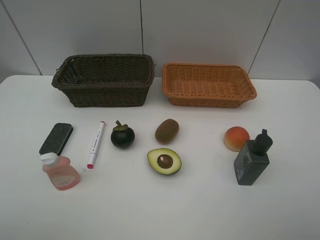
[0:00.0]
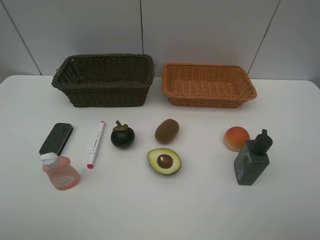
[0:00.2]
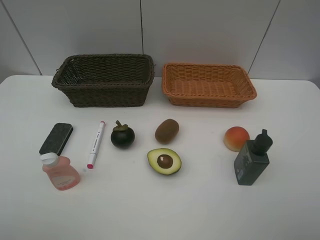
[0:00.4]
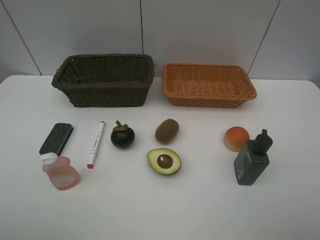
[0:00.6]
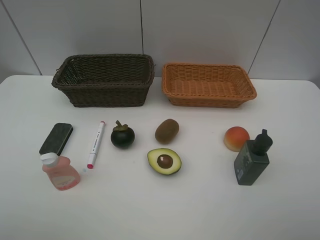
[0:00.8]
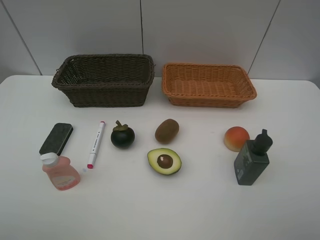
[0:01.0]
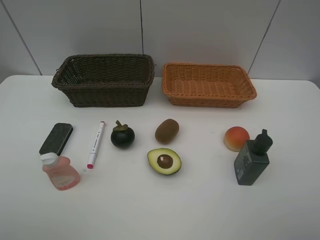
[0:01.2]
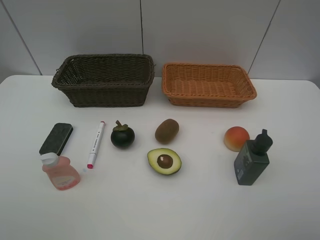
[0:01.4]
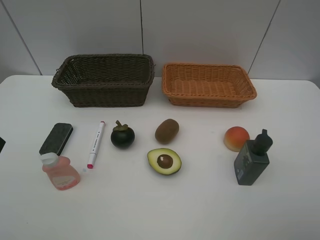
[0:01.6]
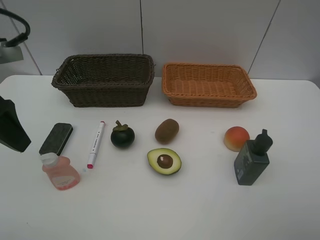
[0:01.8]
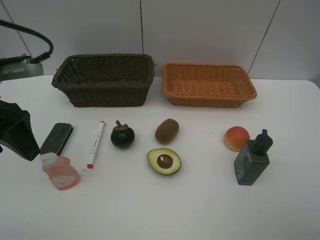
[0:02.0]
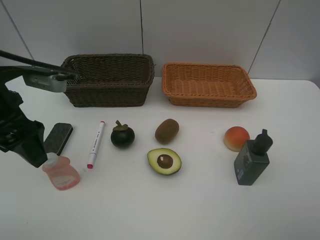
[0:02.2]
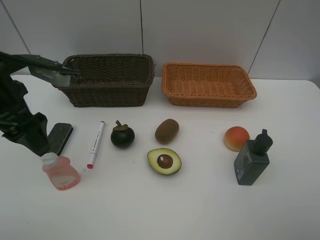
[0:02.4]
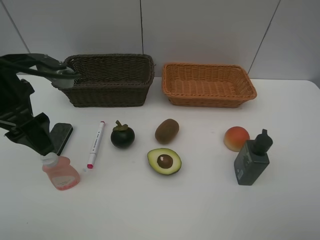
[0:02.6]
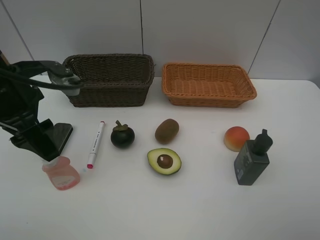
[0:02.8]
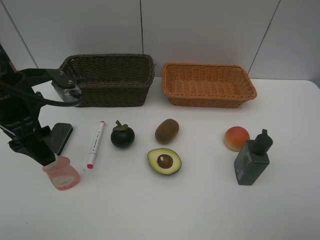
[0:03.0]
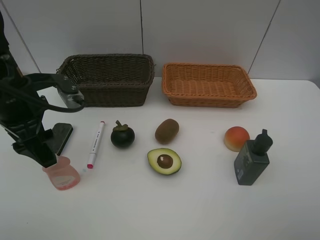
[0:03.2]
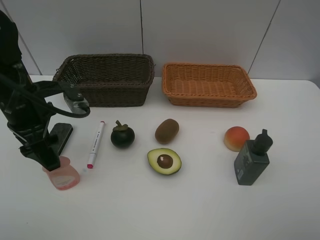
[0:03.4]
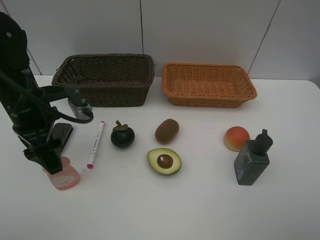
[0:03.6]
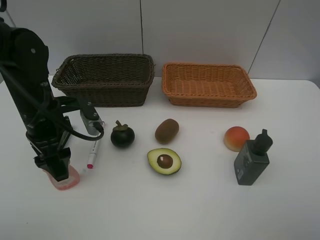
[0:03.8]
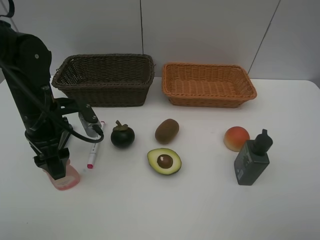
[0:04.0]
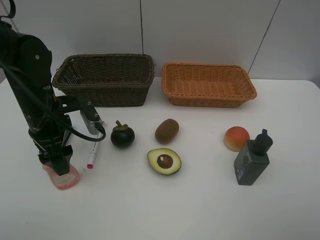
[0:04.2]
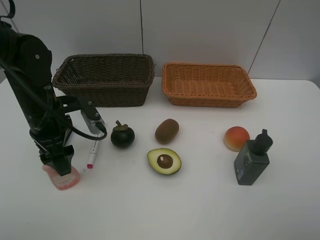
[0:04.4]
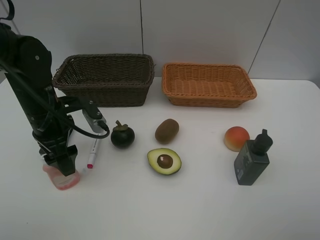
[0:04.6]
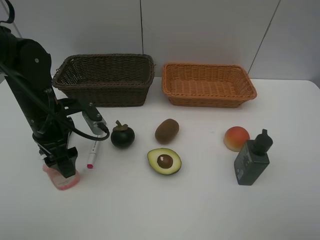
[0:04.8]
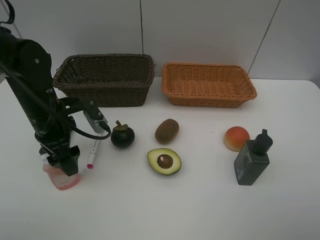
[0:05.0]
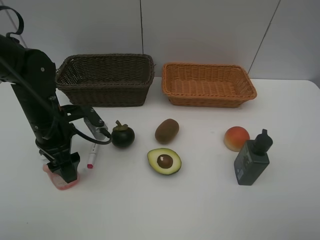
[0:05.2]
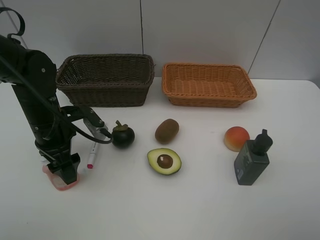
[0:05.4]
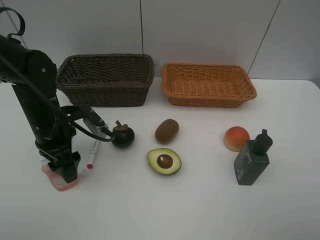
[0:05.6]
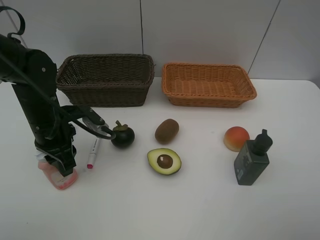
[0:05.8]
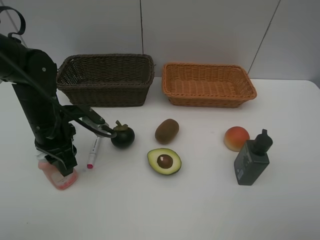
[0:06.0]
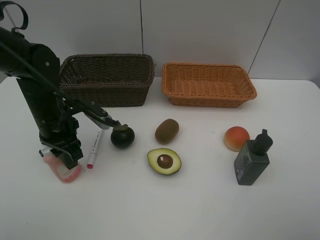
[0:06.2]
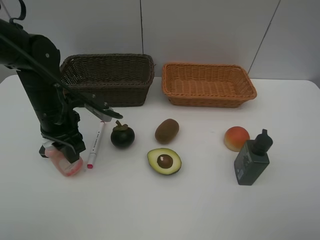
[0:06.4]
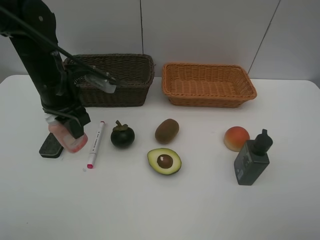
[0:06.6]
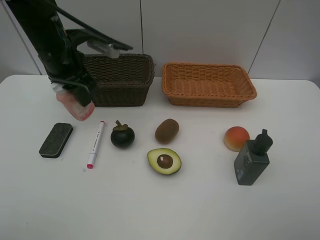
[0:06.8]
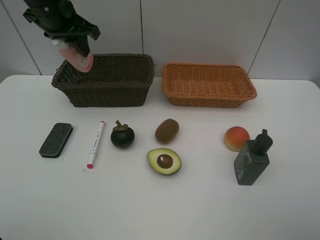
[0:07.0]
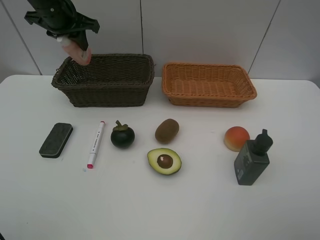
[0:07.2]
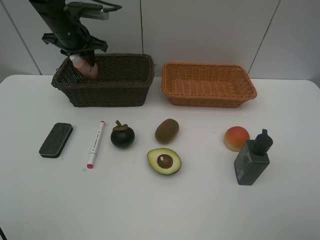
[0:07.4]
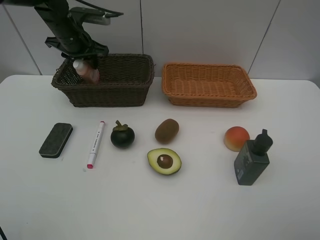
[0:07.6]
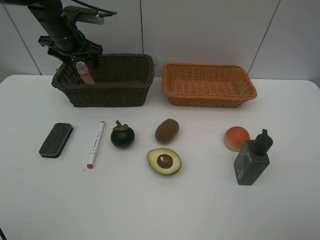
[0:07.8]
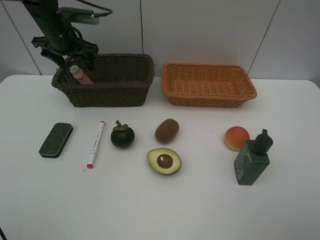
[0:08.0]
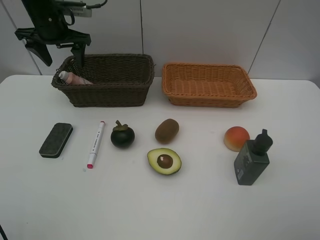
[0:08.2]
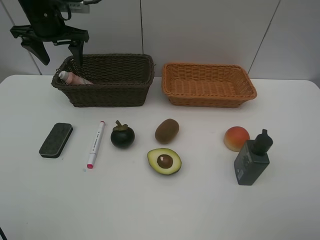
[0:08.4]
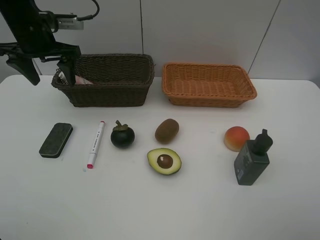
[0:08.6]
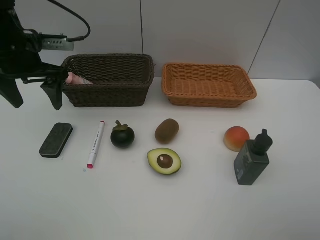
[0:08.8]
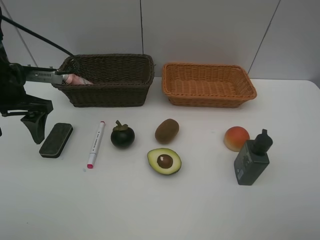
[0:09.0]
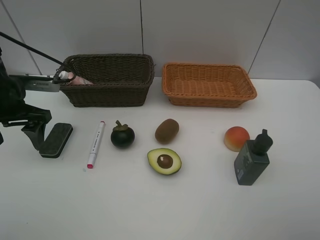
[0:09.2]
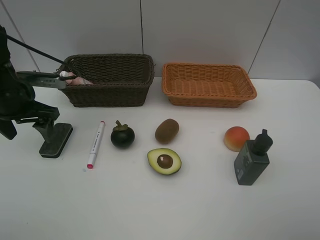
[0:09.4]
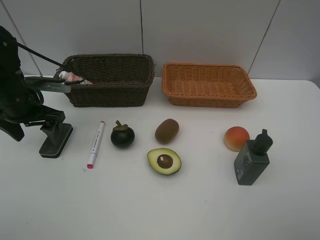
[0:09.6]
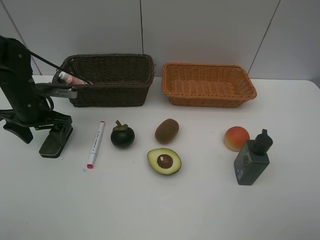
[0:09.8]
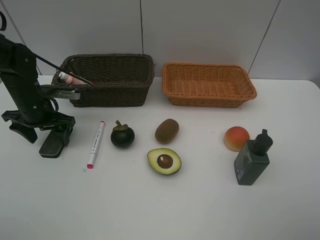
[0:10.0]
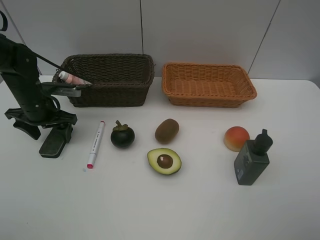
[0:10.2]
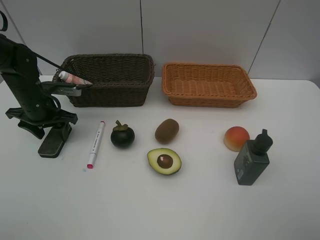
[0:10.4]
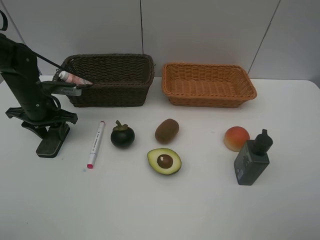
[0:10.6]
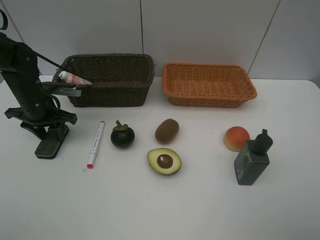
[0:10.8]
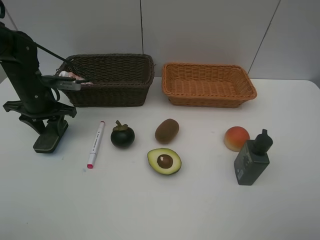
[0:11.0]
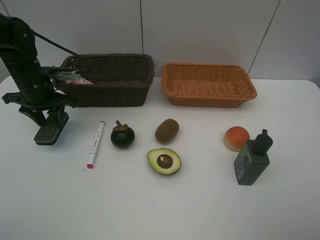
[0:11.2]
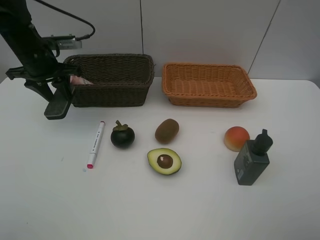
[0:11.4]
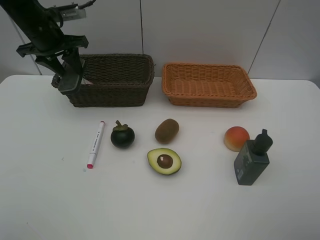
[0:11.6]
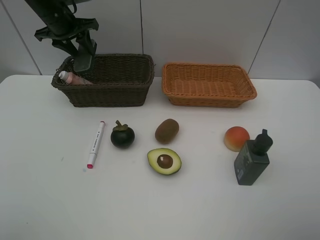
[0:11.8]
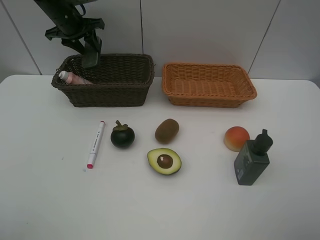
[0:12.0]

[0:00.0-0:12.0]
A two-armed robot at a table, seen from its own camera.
Task of the whole recording: Place multiple objects separately in different baskets.
Step, 0:00.0 to 0:06.4: Pick up the laundry detergent with left gripper.
Step, 0:06.6 to 0:08.0: Place the laundry detergent in the dark basket with left gripper.
Step, 0:08.2 to 0:11.0: Pick up blackboard eraser with left gripper.
0:01.6 to 0:03.0: The left gripper heads forward, downward and to the right, covering roughly 15 cm.
0:03.0 to 0:04.4: The left gripper heads downward, covering roughly 5 cm.
0:04.4 to 0:06.0: The left gripper closes up.
0:06.0 to 0:07.6: The left gripper heads forward and upward, covering some 20 cm.
0:07.6 to 0:09.0: The left gripper shifts some 20 cm backward, and opens.
0:09.0 to 0:10.4: The left gripper moves downward and forward, some 10 cm.
0:10.4 to 0:12.0: The left gripper shifts about 20 cm forward and upward.

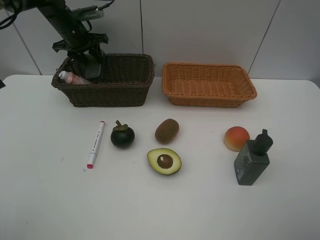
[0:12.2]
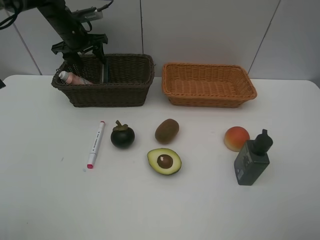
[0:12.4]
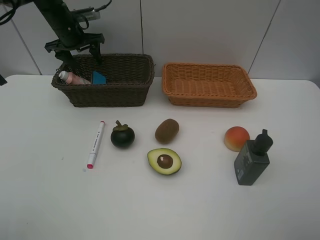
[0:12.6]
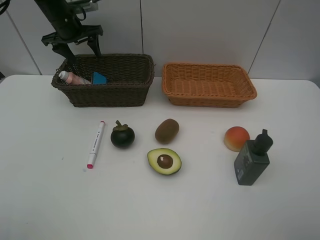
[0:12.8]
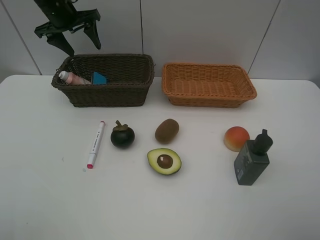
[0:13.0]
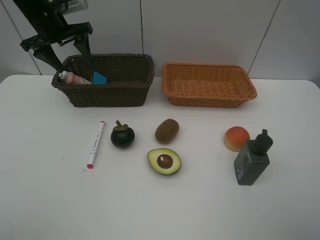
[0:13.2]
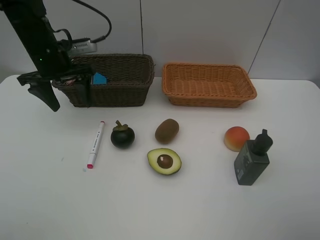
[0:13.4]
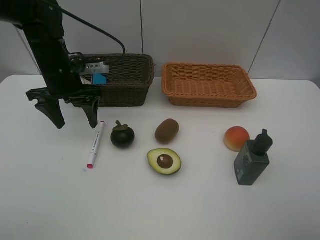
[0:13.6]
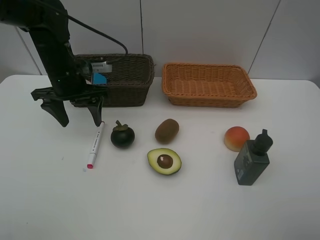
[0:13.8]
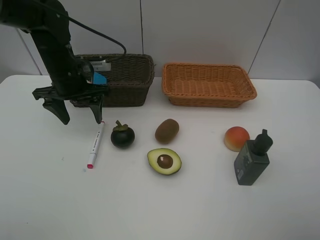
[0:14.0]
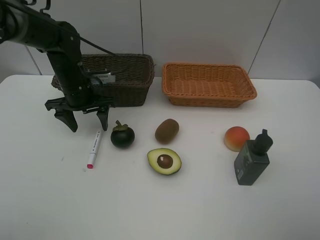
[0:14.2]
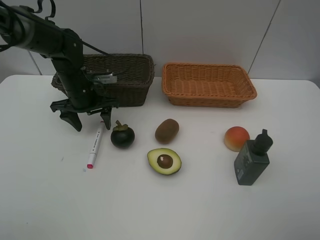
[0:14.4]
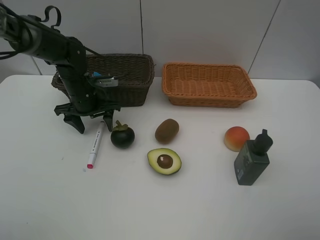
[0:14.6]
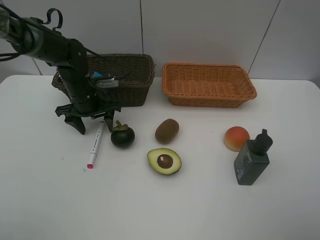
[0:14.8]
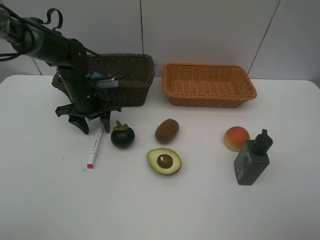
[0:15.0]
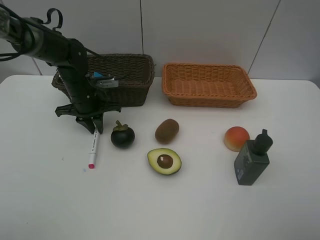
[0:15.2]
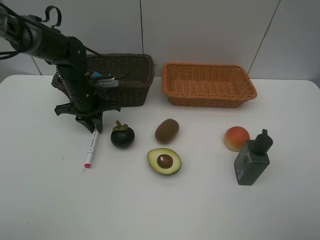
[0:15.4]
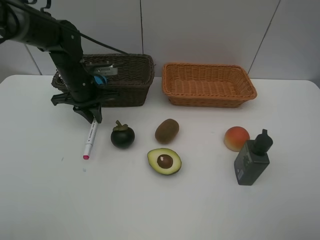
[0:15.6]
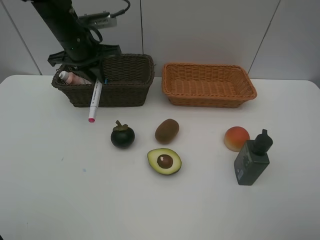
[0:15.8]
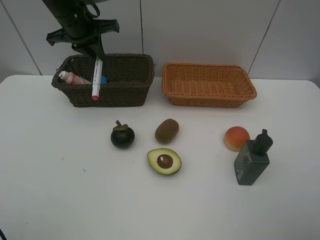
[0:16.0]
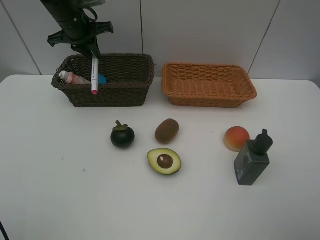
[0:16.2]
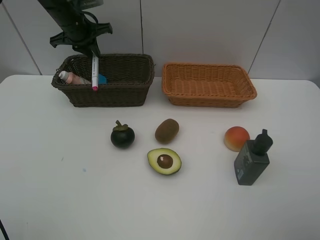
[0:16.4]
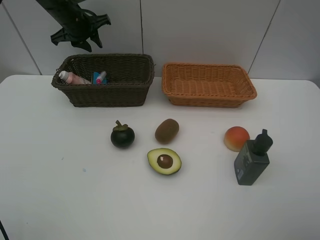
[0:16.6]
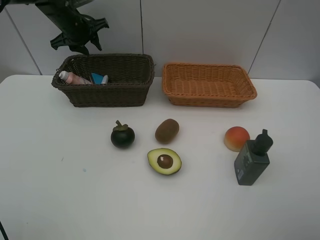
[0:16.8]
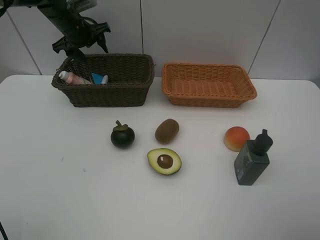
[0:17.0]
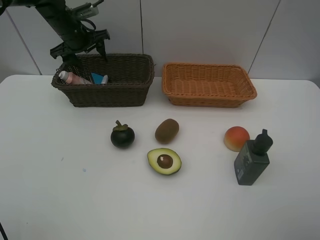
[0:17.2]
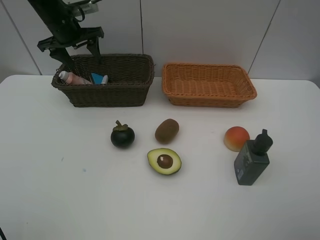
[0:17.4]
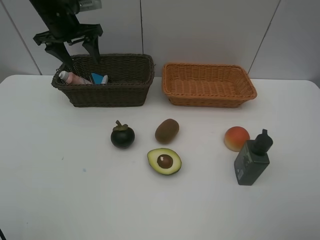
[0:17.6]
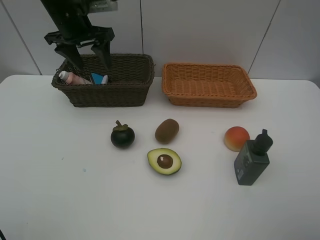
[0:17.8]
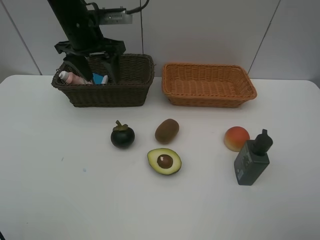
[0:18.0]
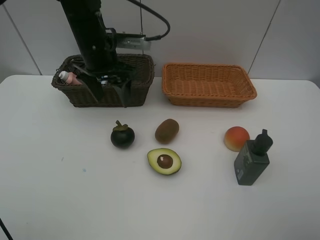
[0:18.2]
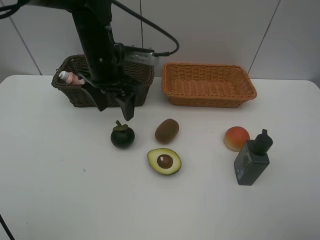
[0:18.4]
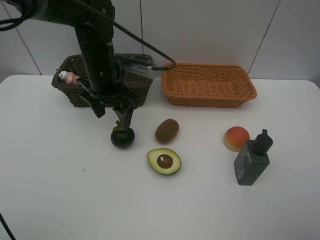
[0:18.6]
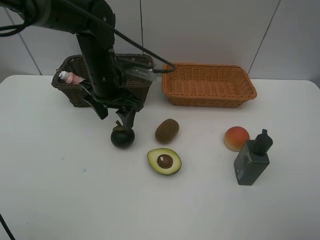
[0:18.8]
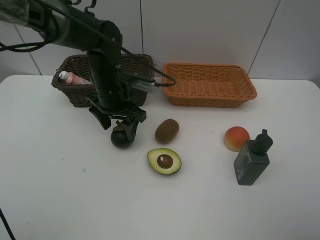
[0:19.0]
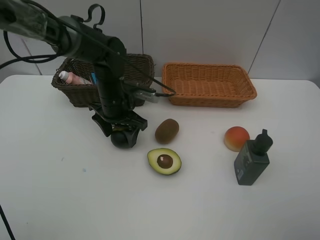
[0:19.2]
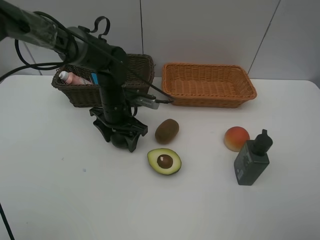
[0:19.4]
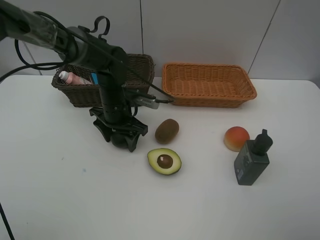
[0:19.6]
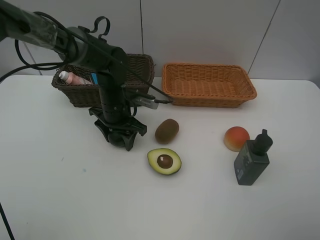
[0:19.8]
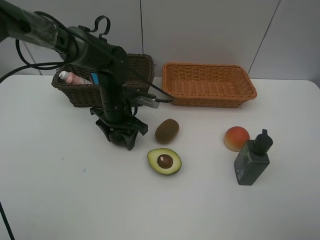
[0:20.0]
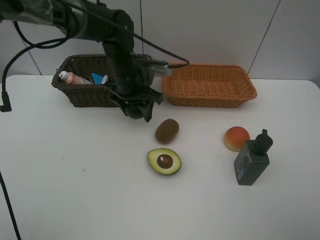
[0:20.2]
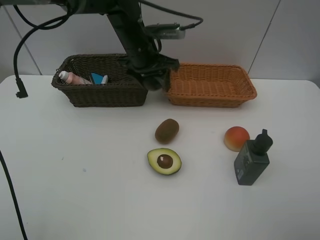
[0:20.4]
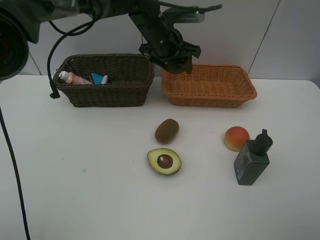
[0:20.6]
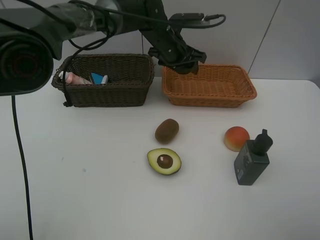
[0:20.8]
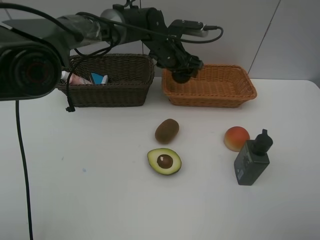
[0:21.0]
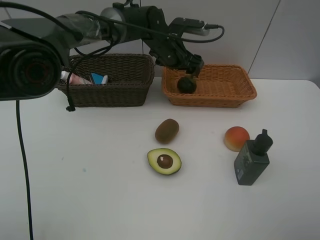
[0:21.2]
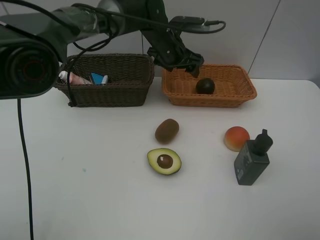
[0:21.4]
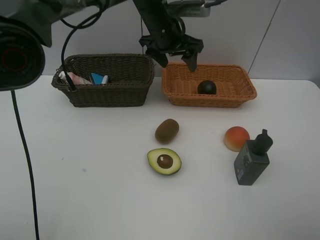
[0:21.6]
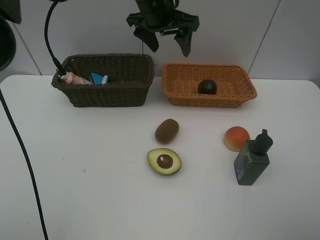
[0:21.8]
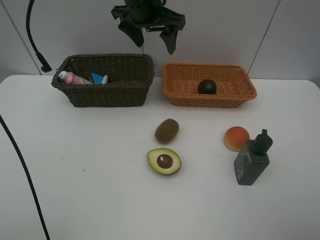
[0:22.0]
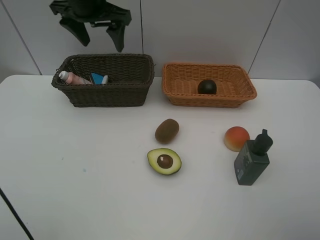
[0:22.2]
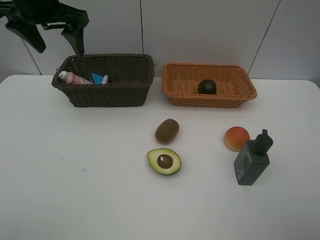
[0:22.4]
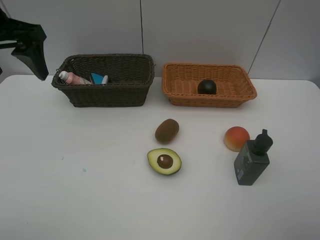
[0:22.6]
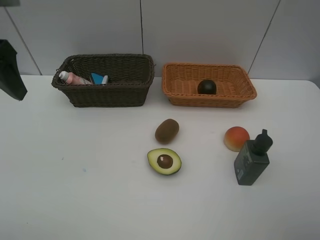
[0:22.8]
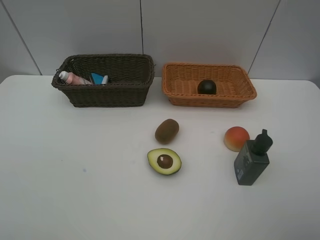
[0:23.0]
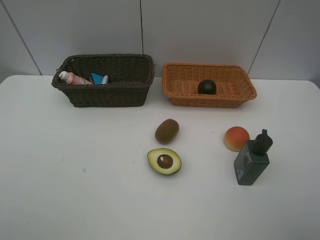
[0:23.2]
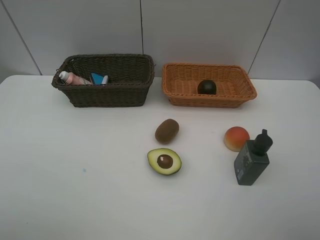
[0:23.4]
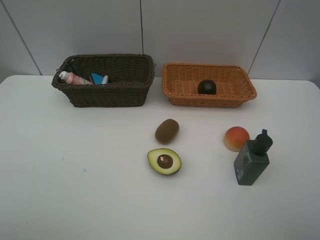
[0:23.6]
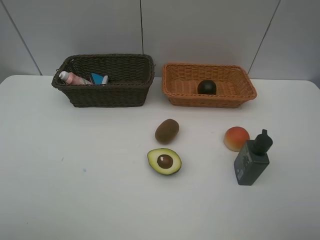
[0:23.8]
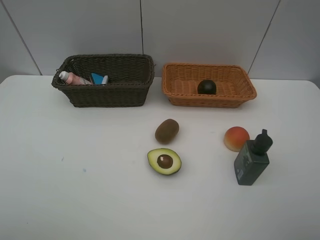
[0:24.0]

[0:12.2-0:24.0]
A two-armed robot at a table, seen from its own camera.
Task of the whole recording: Place multiple objects separately in different baskets.
Step, 0:12.6 to 0:15.6: Pick up the red marker with left gripper.
Step, 0:15.8 to 0:16.8: Place the red marker in the dark basket with left gripper.
Step, 0:17.0 to 0:20.0: Pick up the mangosteen with left gripper.
Step, 0:20.2 to 0:21.2: Place the mangosteen in the light basket with left gripper.
0:12.2 to 0:13.6: The left gripper goes approximately 20 cm backward, and opens up.
0:13.6 to 0:15.2: The left gripper heads downward, covering approximately 10 cm, and closes its fingers.
0:15.2 to 0:16.6: The left gripper travels upward and forward by about 20 cm.
0:16.6 to 0:18.2: The left gripper moves backward and to the right, about 20 cm, and opens its fingers.
0:18.2 to 0:19.6: The left gripper travels downward by about 15 cm.
0:19.6 to 0:21.0: The left gripper travels forward, to the right and upward by roughly 20 cm.
0:21.0 to 0:22.6: The left gripper travels to the left, backward and upward by approximately 35 cm.
0:22.6 to 0:24.0: The left gripper shifts approximately 30 cm backward.
